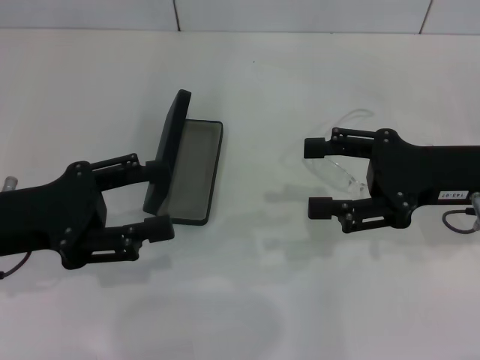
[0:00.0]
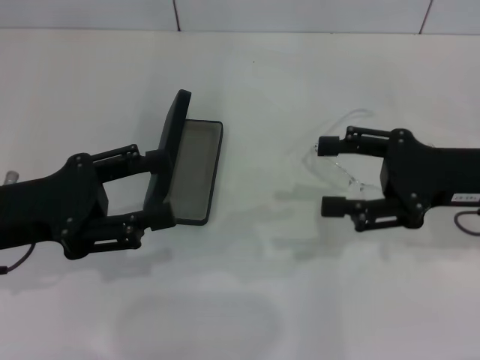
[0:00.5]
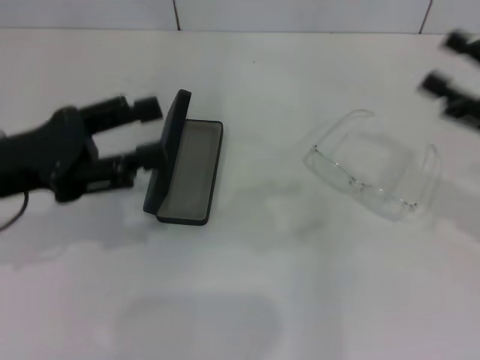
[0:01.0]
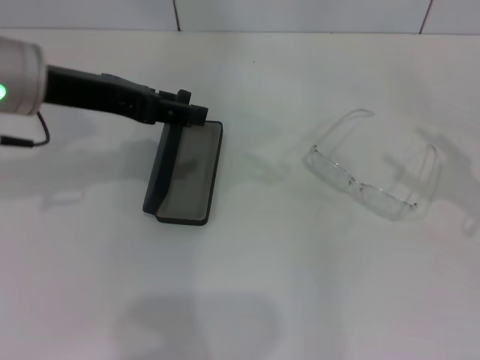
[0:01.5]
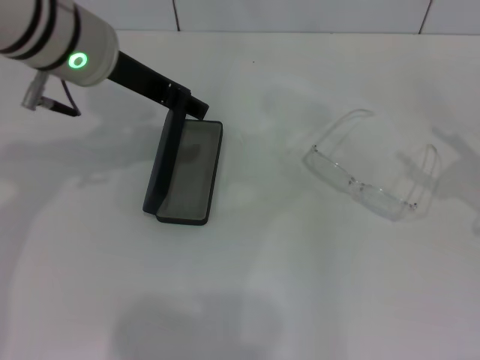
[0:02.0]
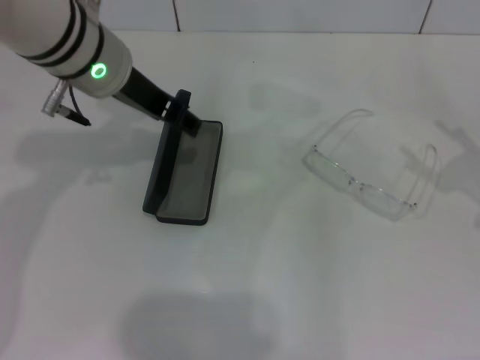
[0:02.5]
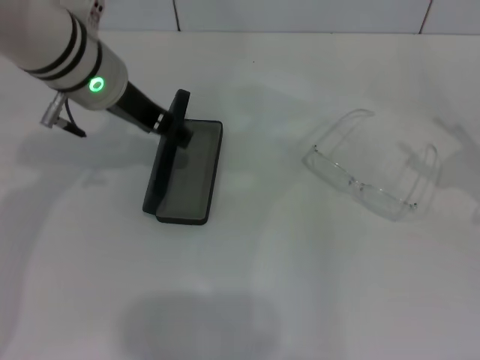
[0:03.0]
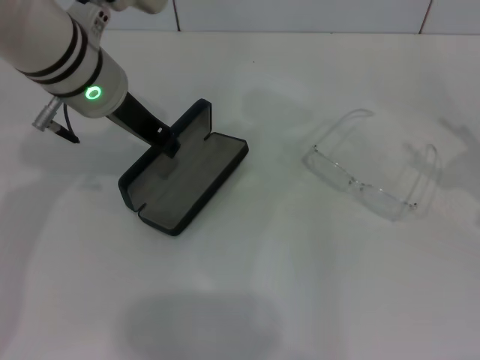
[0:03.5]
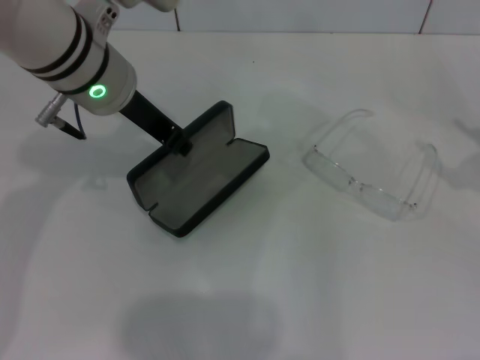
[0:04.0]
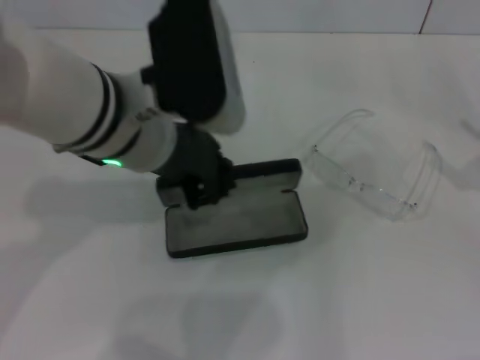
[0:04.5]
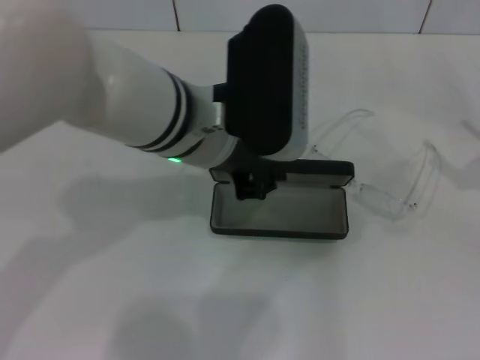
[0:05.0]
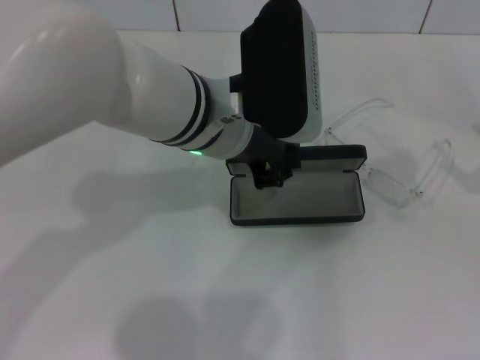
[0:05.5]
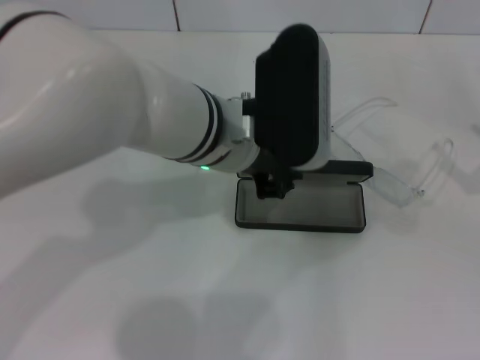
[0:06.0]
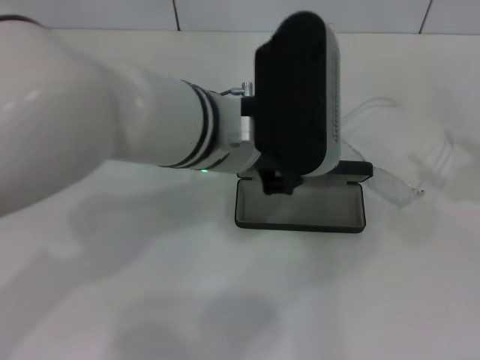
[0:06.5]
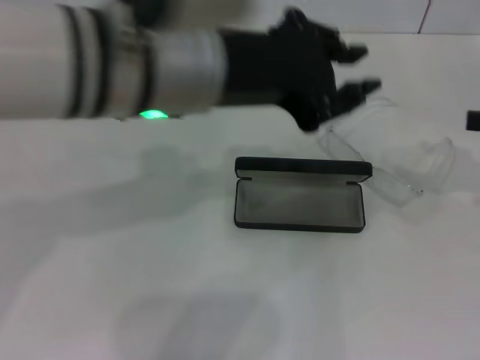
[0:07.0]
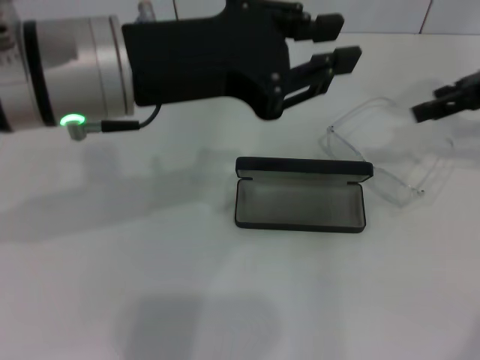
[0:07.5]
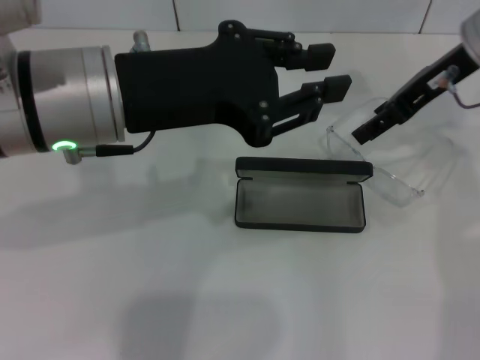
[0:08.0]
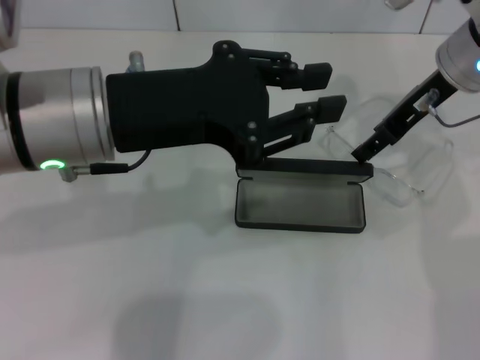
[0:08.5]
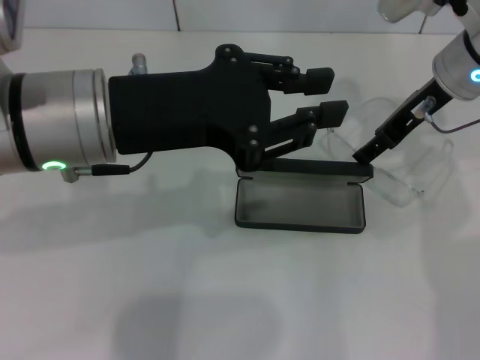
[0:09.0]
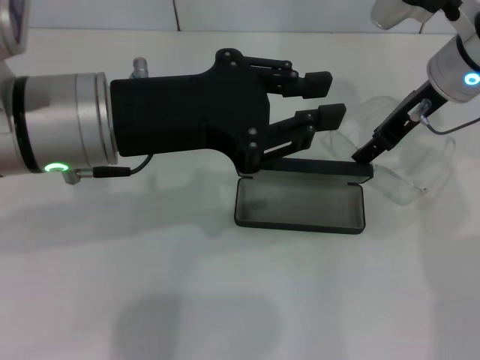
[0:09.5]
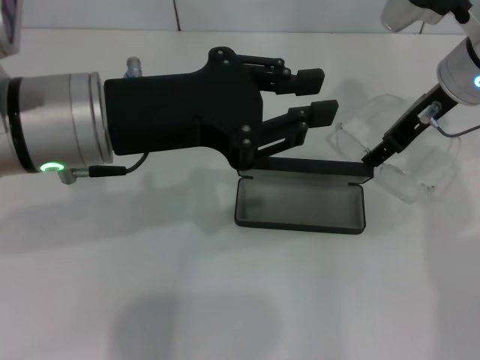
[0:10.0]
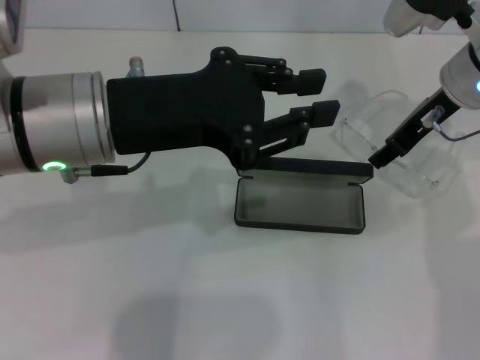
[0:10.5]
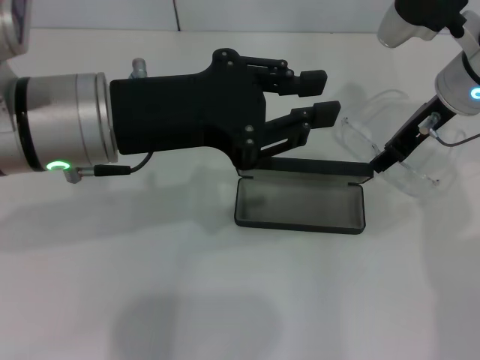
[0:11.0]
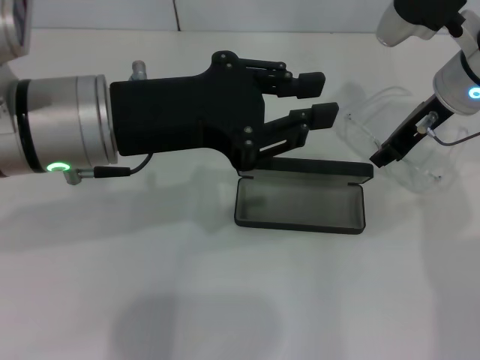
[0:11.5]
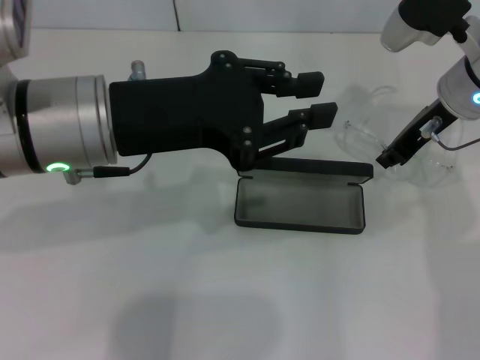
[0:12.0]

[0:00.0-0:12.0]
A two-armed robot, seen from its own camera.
Step, 0:00.0 to 0:03.5: Grab the glasses case with your left hand.
Step, 0:04.0 to 0:06.0: Place the glasses case in the center of the table with your left hand.
Step, 0:06.5 to 0:12.0: Grab the eyeglass frame with your right hand.
0:00.0 to 0:02.0: The right gripper is displaced to the right and backward by some 15 cm; the left gripper is displaced to the right, forward and upward by roughly 20 cm.
0:02.0 to 0:04.0: The left gripper closes.
0:04.0 to 0:06.0: The left gripper heads to the right and backward, covering approximately 10 cm.
0:06.0 to 0:08.0: The right gripper is displaced forward, to the left and upward by some 30 cm; the left gripper heads to the left and upward, covering approximately 10 cm.
0:10.0 to 0:12.0: The right gripper closes up.

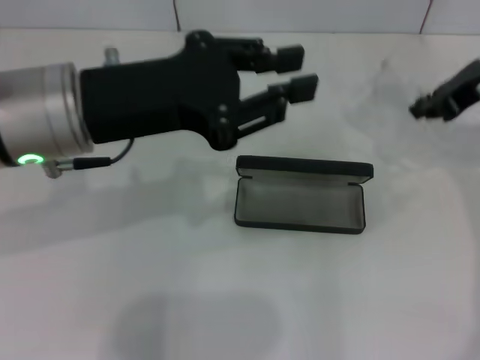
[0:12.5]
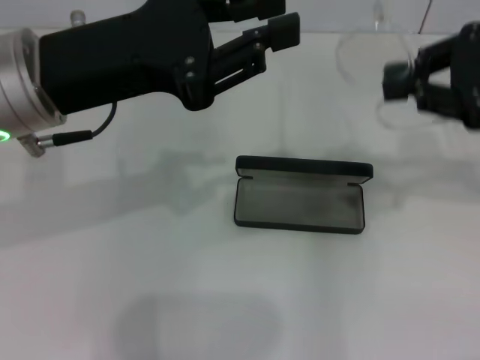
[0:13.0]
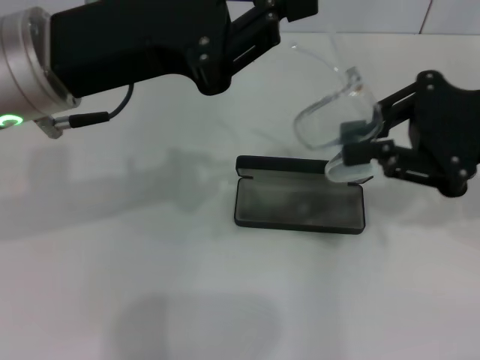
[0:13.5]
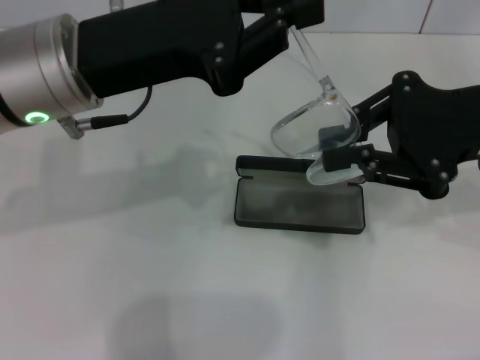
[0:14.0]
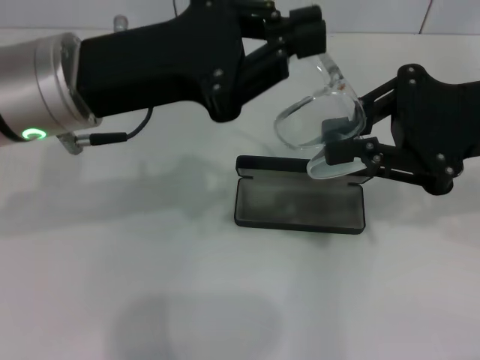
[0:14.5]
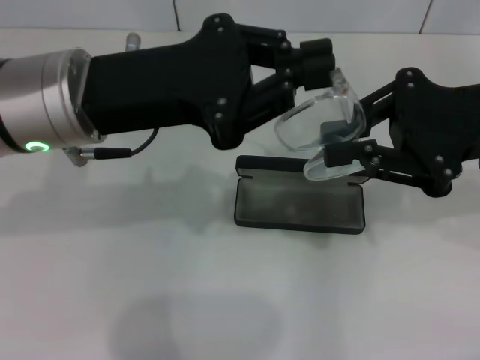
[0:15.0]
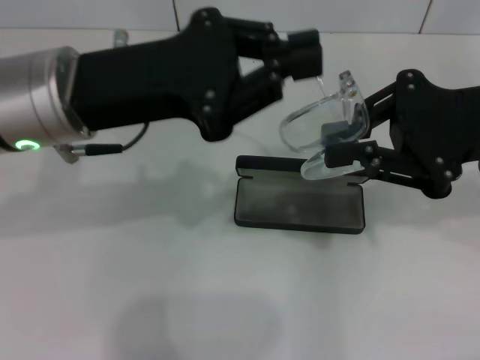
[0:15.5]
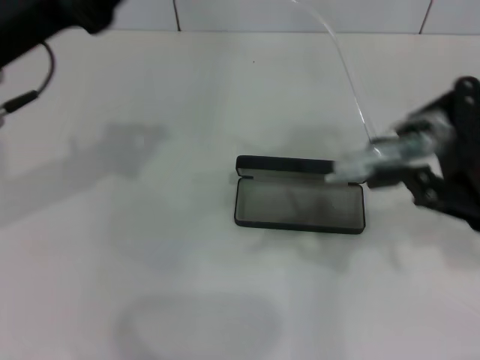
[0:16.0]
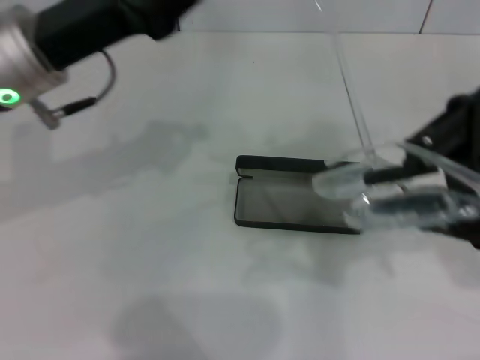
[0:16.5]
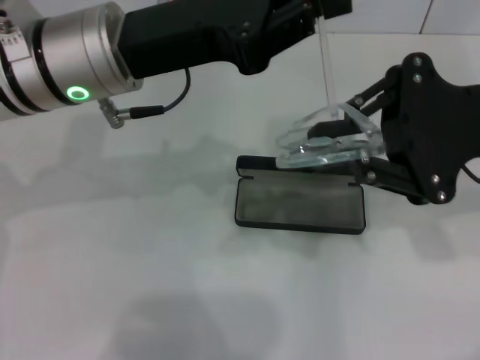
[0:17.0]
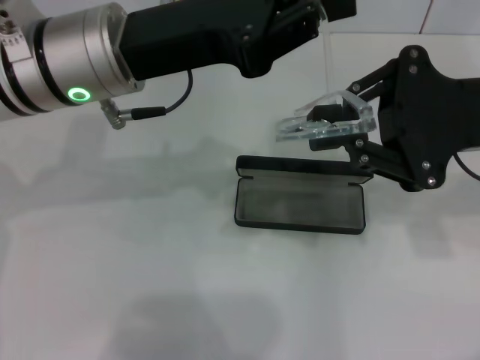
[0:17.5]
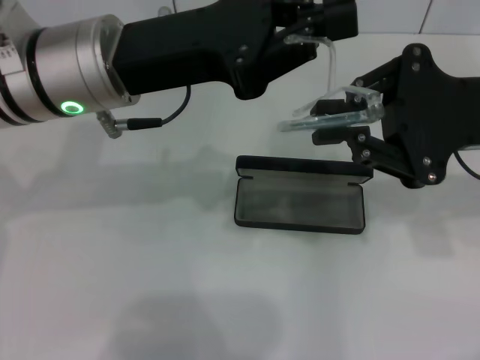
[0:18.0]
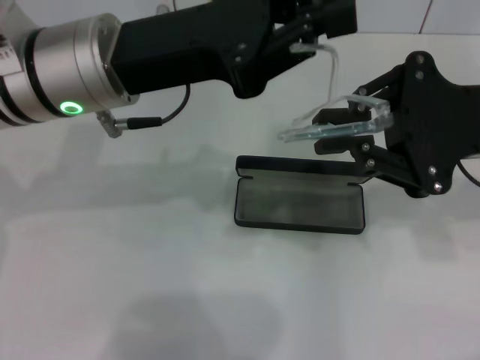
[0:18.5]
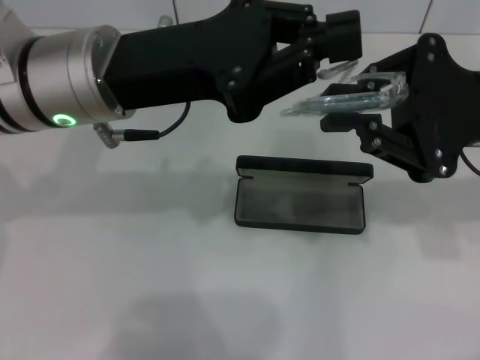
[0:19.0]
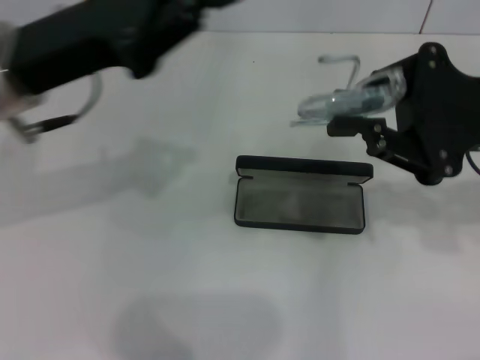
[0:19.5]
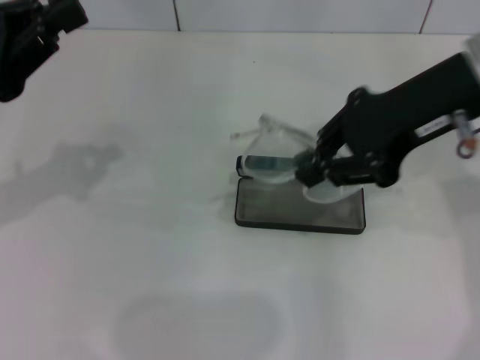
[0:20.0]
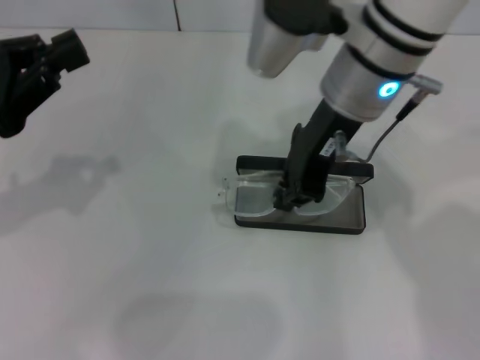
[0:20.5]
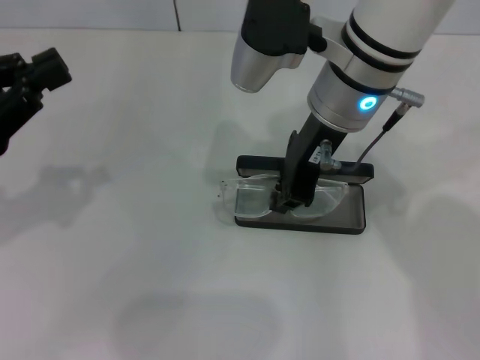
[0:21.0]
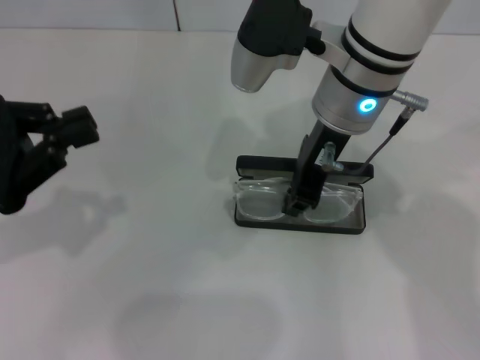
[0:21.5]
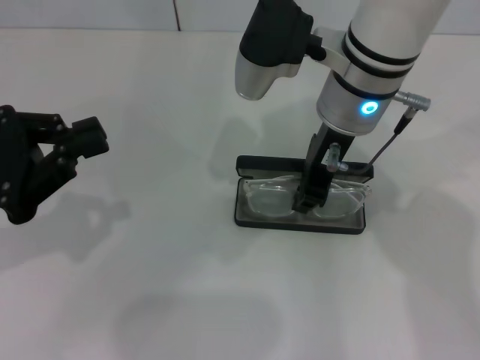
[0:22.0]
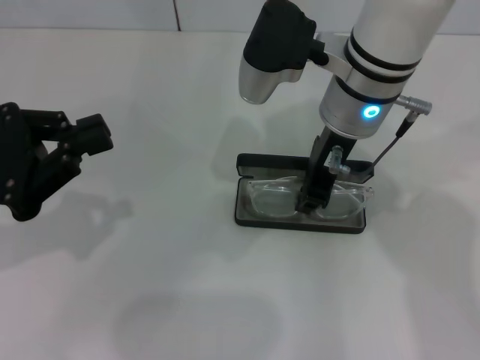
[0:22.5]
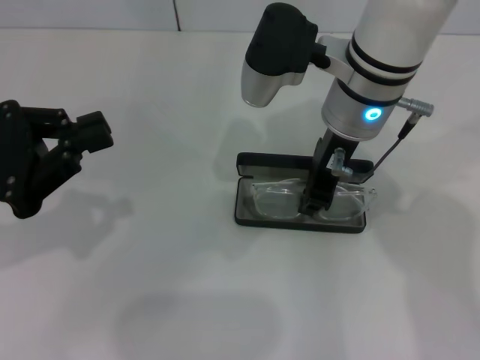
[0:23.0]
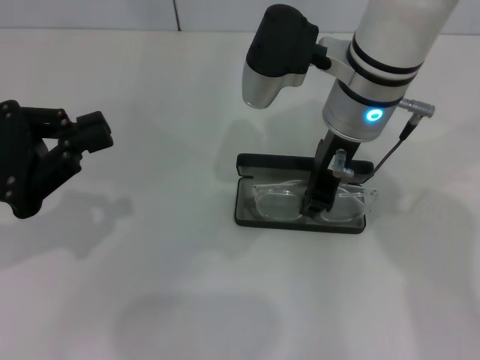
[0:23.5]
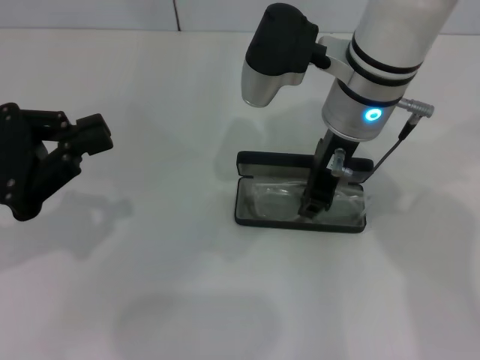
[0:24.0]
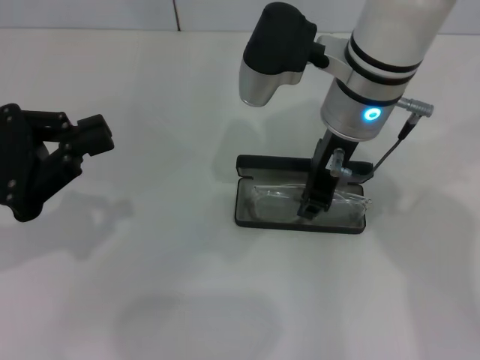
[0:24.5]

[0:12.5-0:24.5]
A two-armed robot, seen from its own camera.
Step, 0:12.5 to 0:19.0: Lift the glasses with your right hand.
0:12.5 to 0:14.5: The right gripper moves backward, approximately 10 cm.
0:16.5 to 0:18.5: The left gripper shifts by roughly 5 cm.
0:18.5 to 0:20.5: The two grippers go approximately 15 cm to the left.
0:20.5 to 0:22.5: The grippers stay close to where they were, moving slightly.
0:22.5 to 0:24.5: Both grippers stay put.

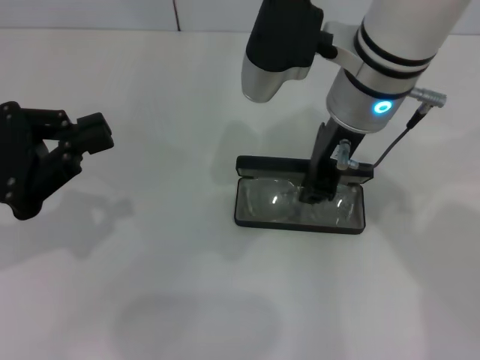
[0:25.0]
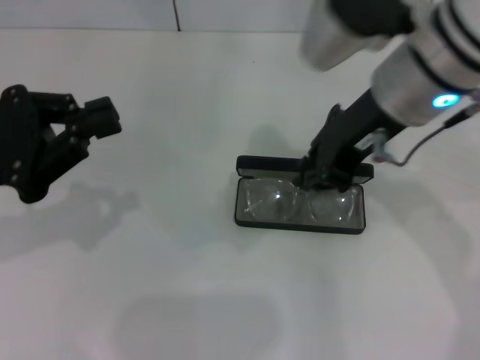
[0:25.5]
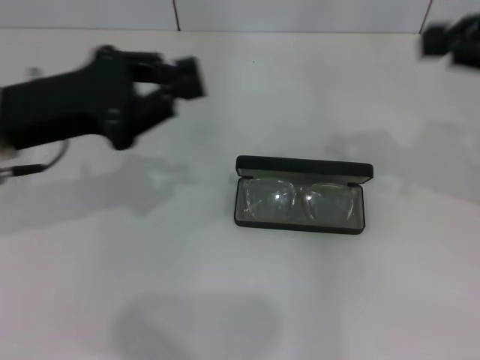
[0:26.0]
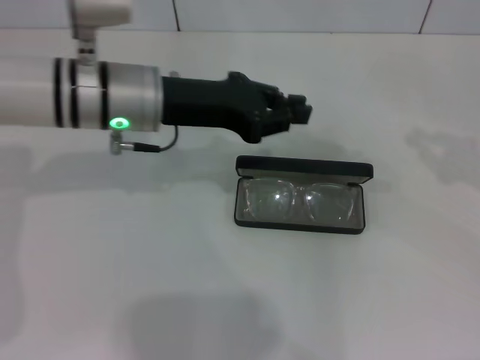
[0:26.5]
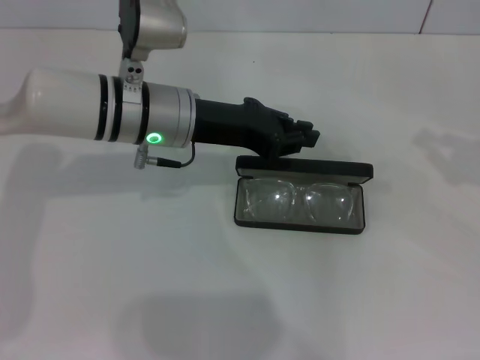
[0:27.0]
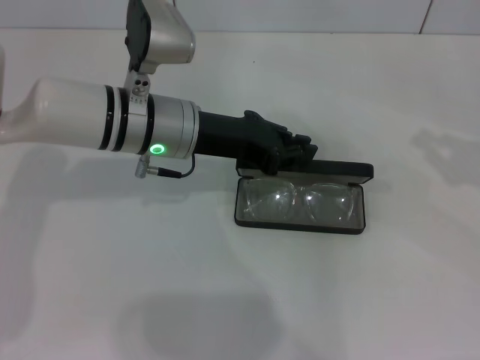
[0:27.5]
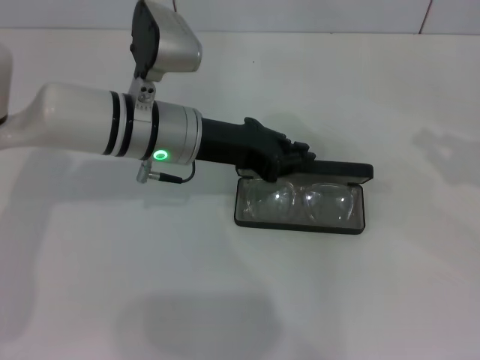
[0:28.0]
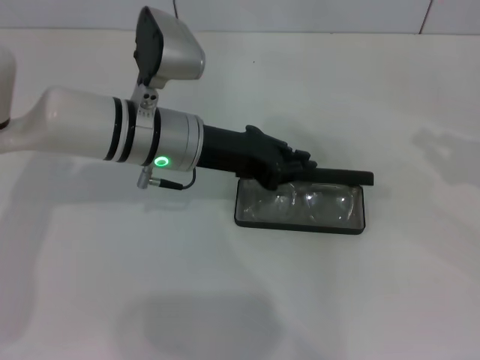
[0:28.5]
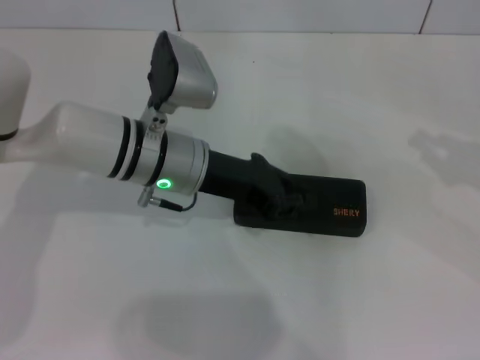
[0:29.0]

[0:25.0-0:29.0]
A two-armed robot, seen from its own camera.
Step, 0:25.5 to 0:28.5: Close the glasses case with your left hand.
0:25.0 to 0:27.0: The left gripper shifts some 25 cm to the right and forward, while the right gripper moves to the right, some 30 cm.
0:27.0 to 0:29.0: There are only small adjustments of the grippers.
